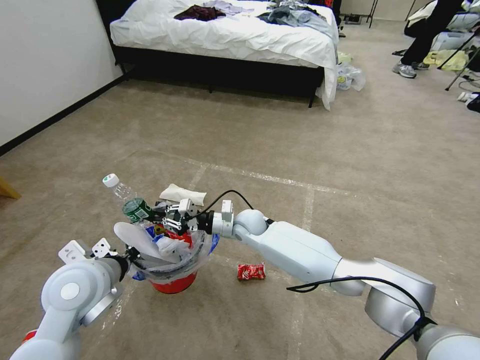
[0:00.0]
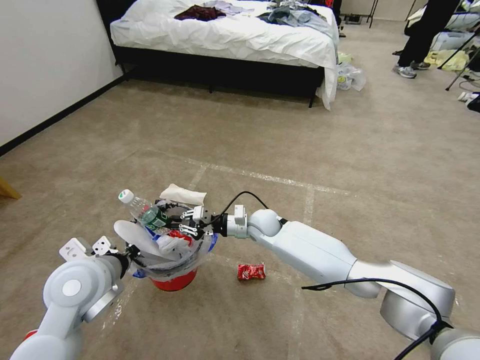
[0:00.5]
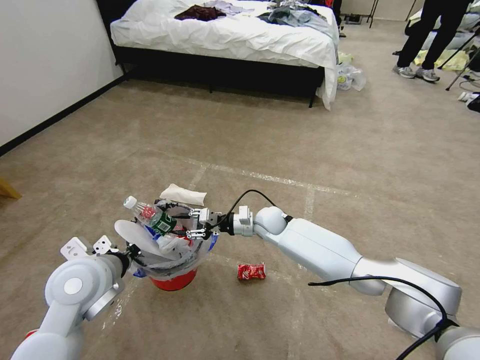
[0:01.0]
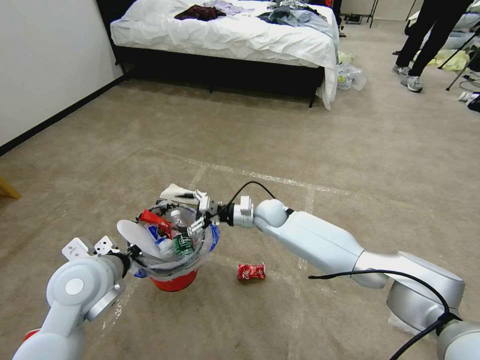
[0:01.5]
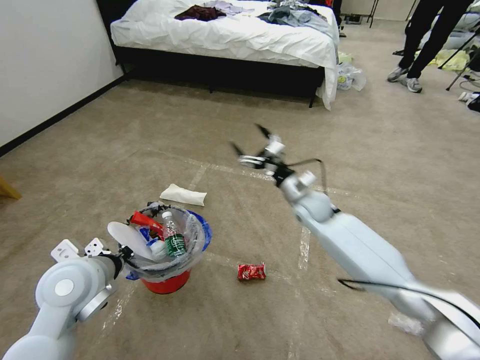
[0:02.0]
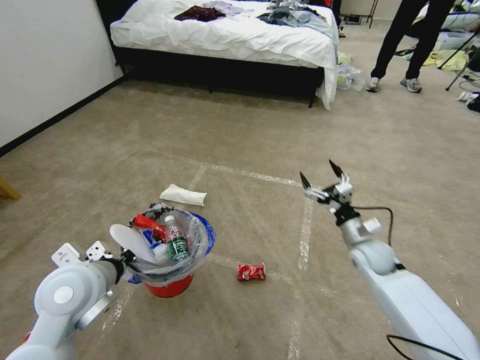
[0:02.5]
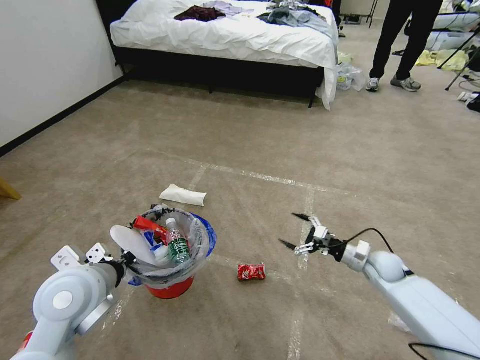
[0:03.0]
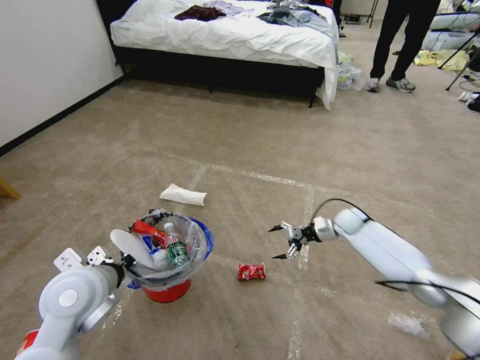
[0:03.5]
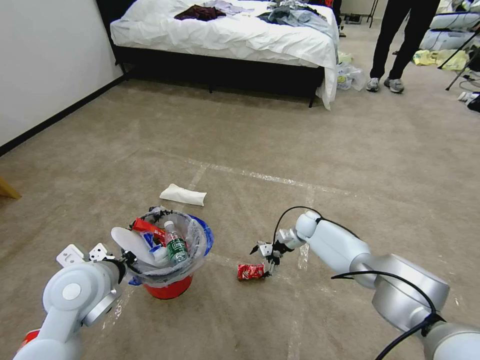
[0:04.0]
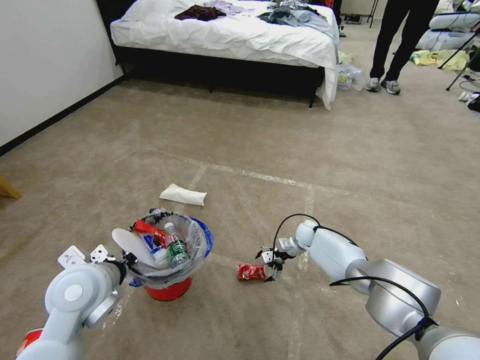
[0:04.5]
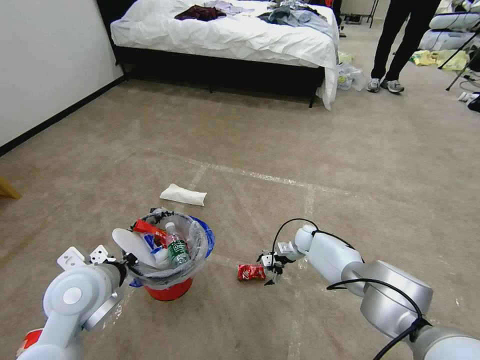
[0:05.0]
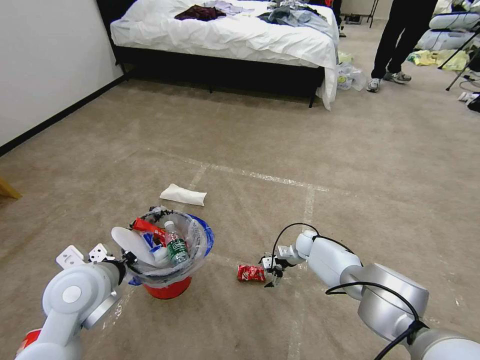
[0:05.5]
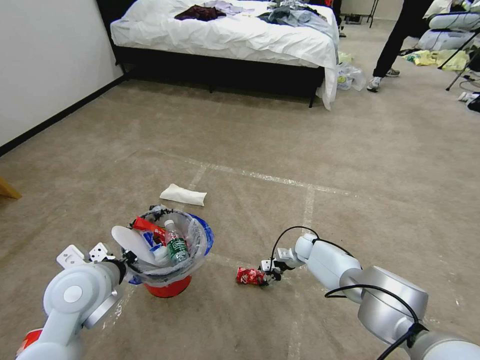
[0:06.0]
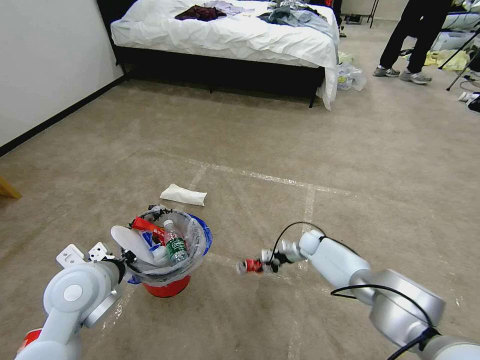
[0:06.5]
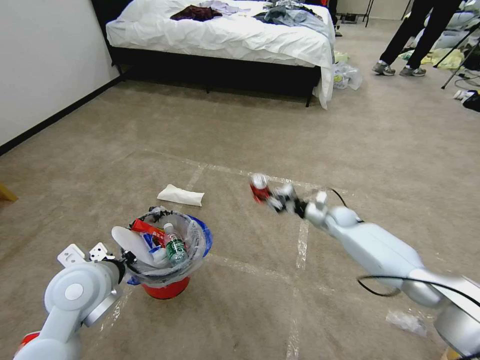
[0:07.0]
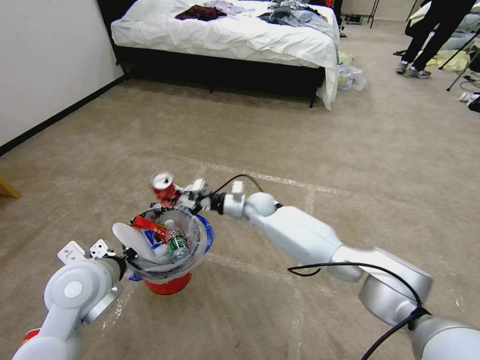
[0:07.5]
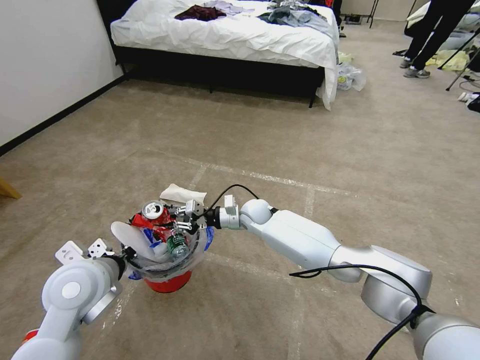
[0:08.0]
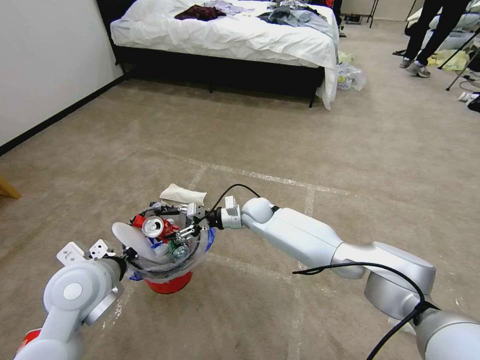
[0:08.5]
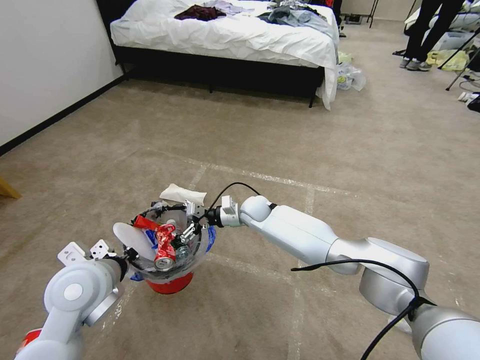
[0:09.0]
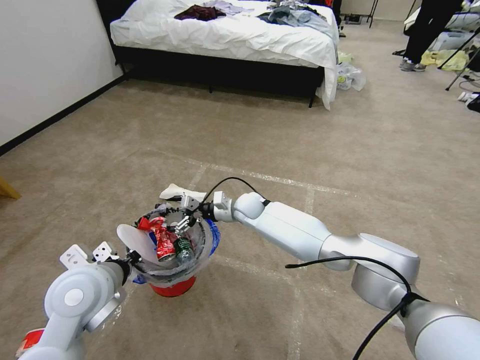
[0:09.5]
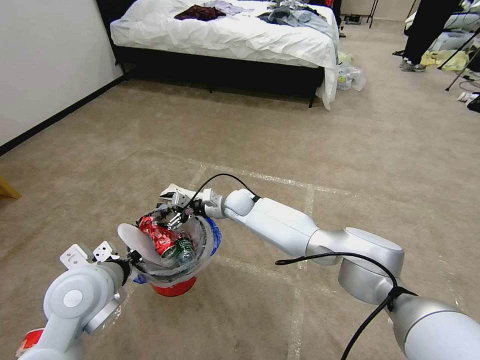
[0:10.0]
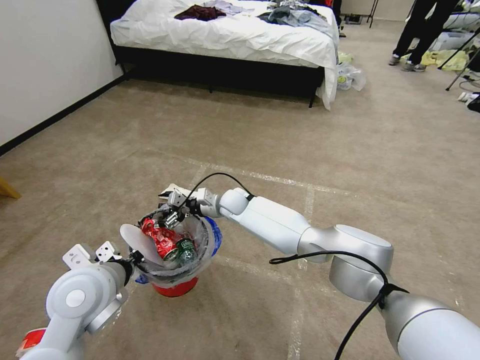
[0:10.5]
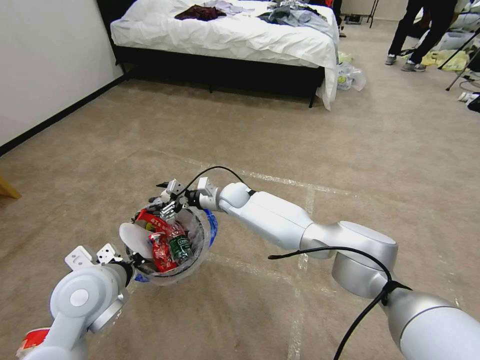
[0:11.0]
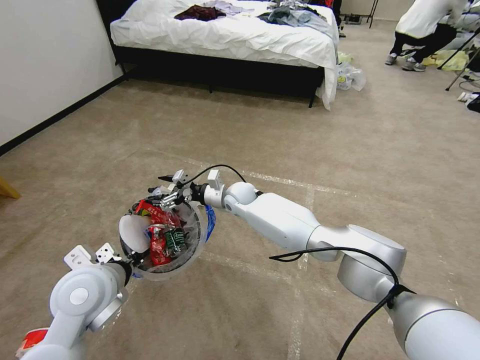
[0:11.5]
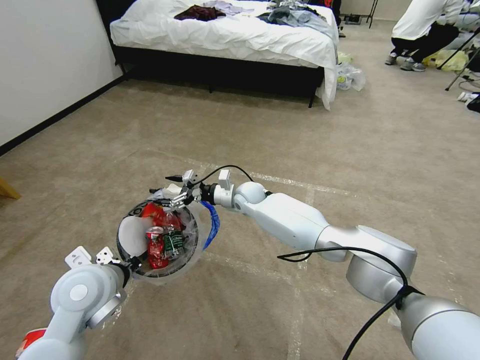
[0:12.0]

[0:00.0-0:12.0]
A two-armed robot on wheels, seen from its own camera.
Task of the whole recording: Pick up the trash bin and place the garbage on the floor into it.
0:00.0 to 0:02.0: The right gripper shifts roughly 15 cm to the right, and opens.
0:02.0 to 0:04.0: The right gripper shifts some 15 cm downward, and travels to the right and back again, roughly 20 cm each way.
0:04.0 to 0:06.0: The right gripper moves downward, about 5 cm, and closes.
0:06.0 to 0:08.0: The right gripper heads to the left and upward, covering some 25 cm, and closes up.
0:08.0 to 0:10.0: The right gripper shifts by approximately 5 cm, and opens.

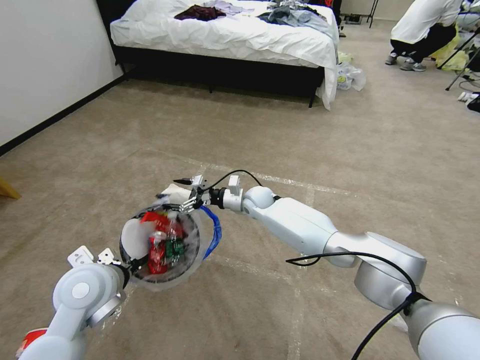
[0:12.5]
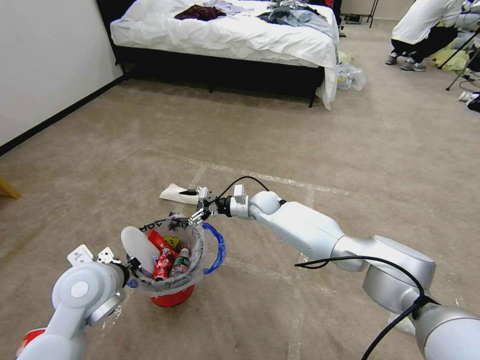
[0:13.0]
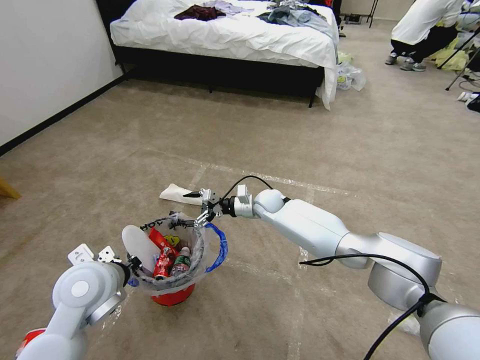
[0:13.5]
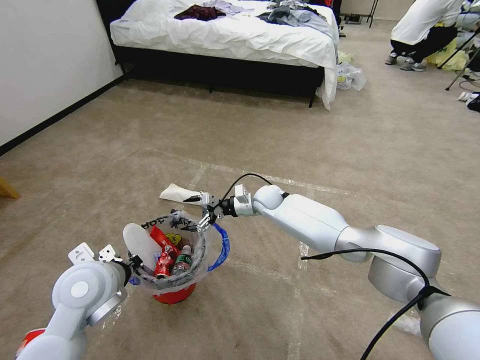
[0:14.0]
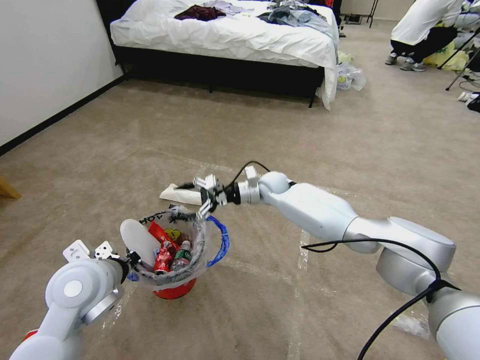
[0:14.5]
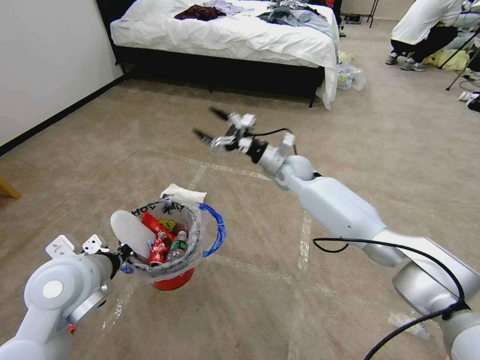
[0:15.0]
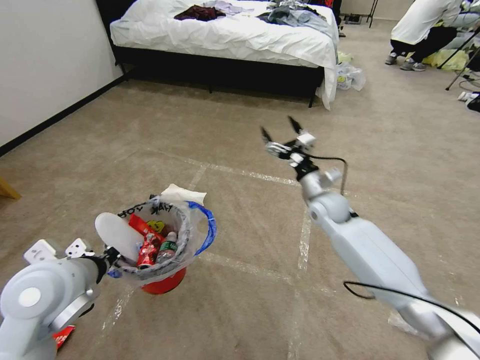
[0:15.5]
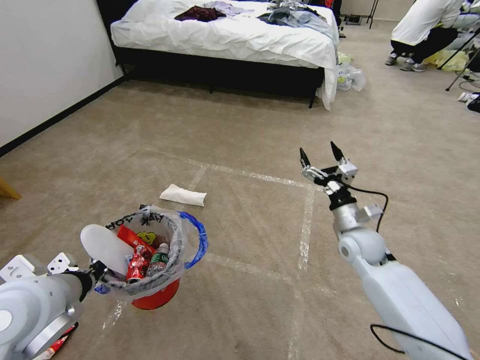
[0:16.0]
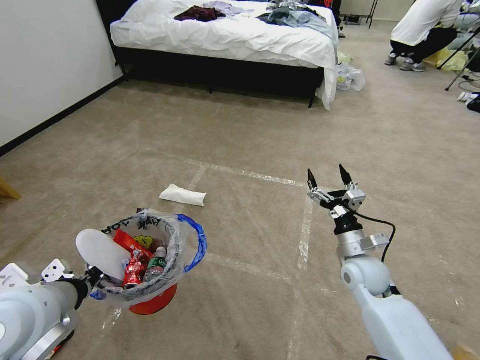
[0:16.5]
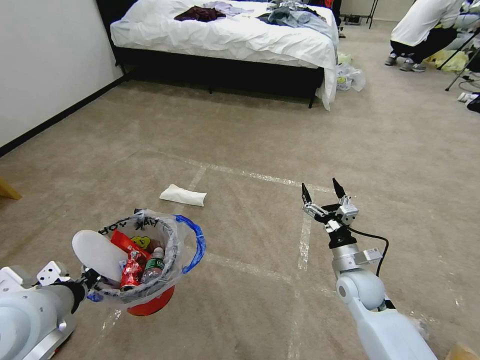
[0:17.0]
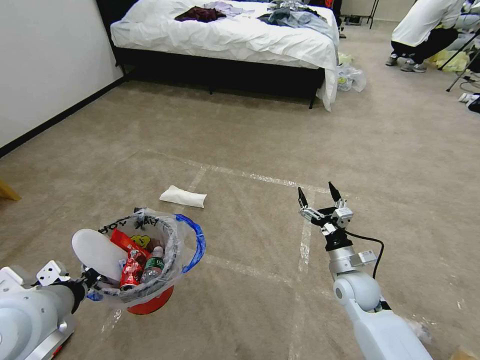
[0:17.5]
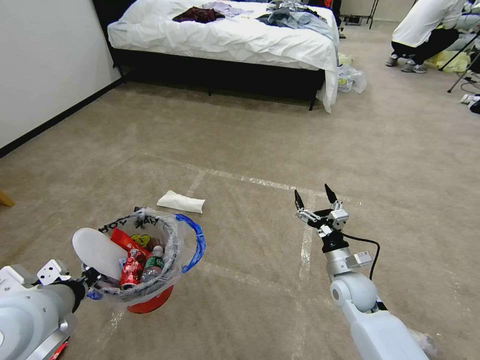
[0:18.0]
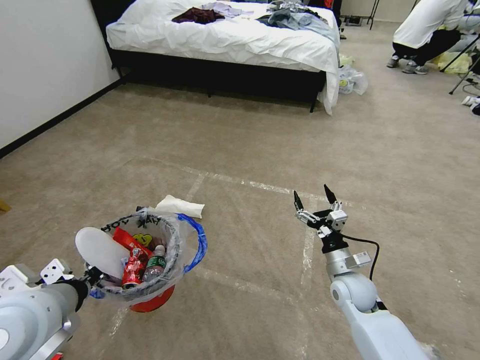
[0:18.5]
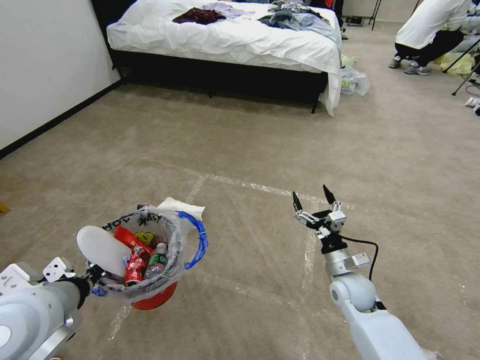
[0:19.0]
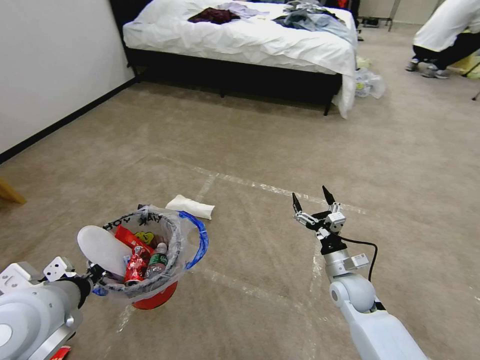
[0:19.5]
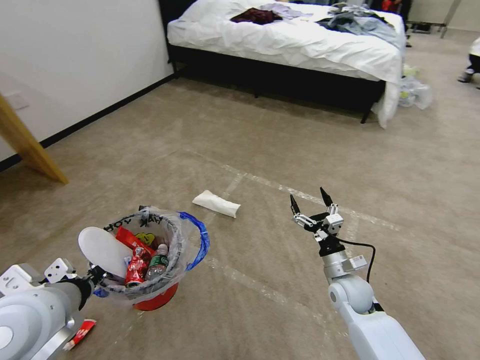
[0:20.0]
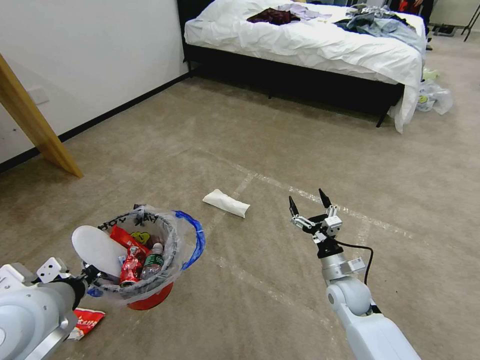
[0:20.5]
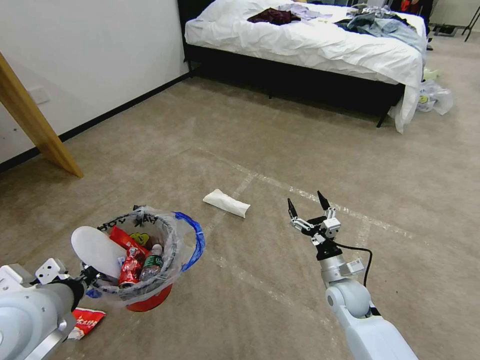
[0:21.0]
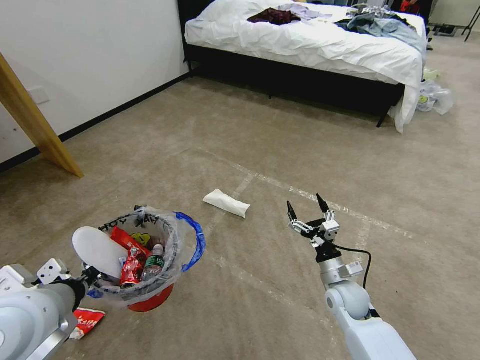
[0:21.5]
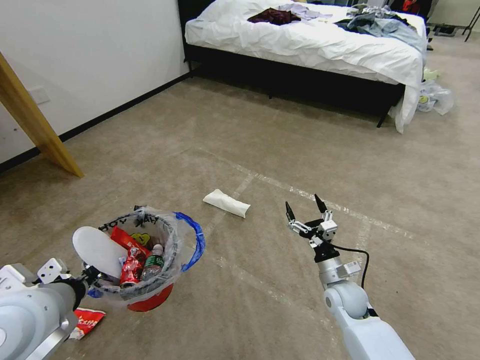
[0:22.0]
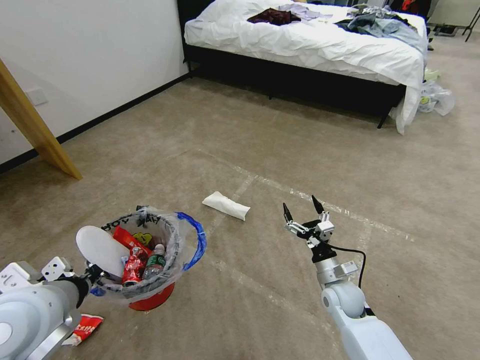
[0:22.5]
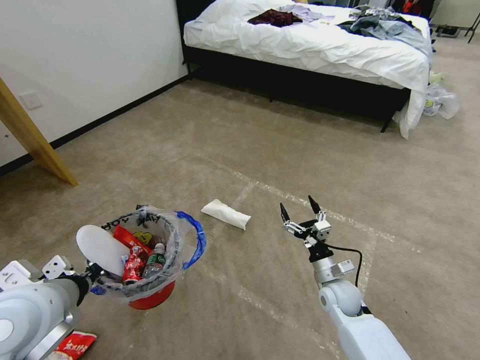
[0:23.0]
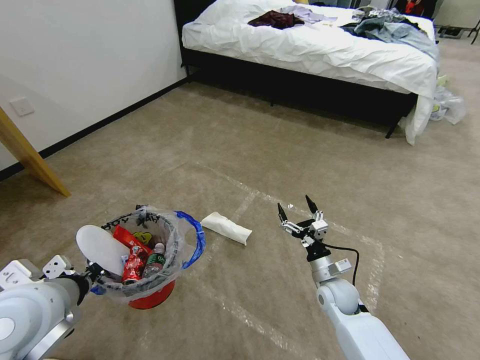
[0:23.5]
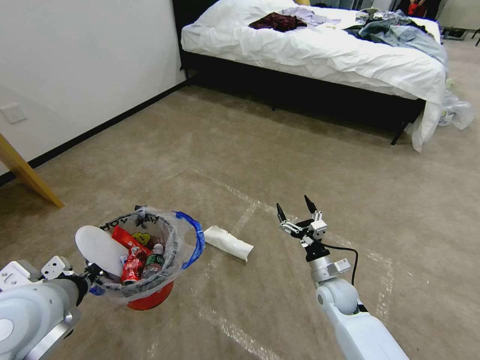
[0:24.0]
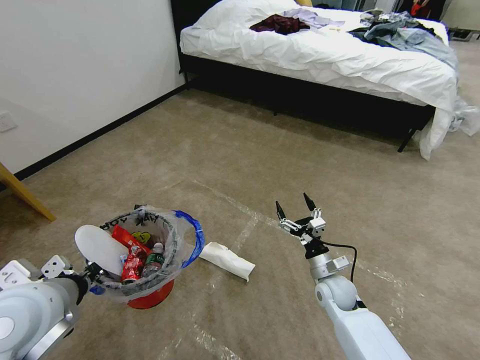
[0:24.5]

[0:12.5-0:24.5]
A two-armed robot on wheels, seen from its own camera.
Task of the whole recording: Pick up the trash bin and place the garbage on the floor into it.
0:12.5 to 0:14.5: The right gripper ends up some 5 cm from where it was.
0:14.5 to 0:16.5: The right gripper travels backward and to the right by approximately 30 cm, while the left gripper goes roughly 10 cm backward and upward.
0:16.5 to 0:18.5: The right gripper travels downward by about 5 cm.
0:20.5 to 0:22.5: There are only small adjustments of the grippers.

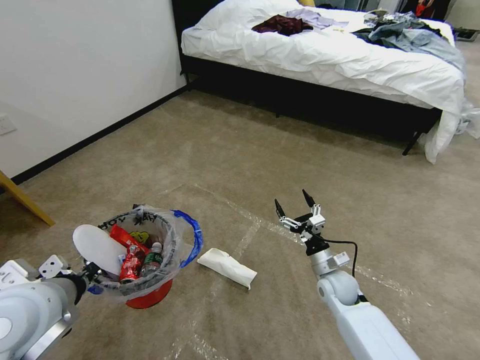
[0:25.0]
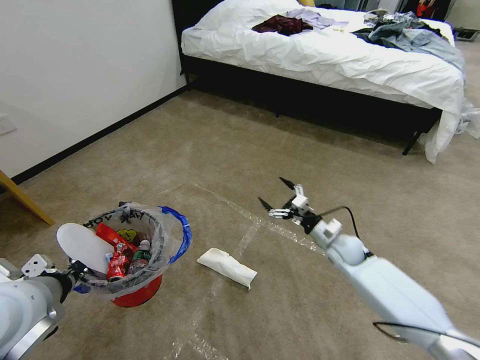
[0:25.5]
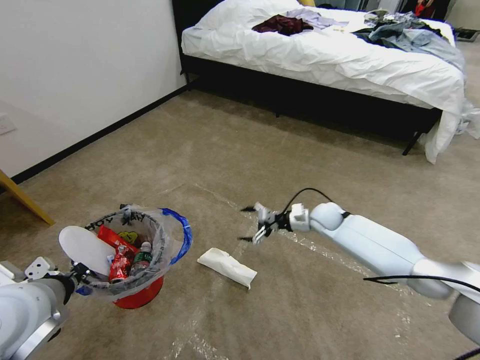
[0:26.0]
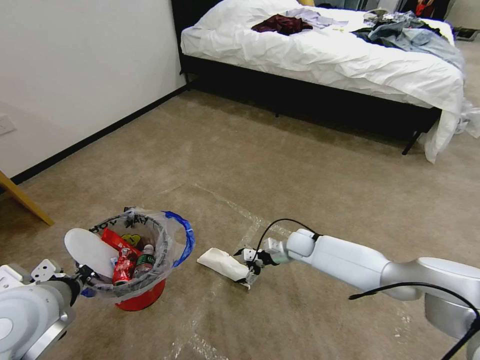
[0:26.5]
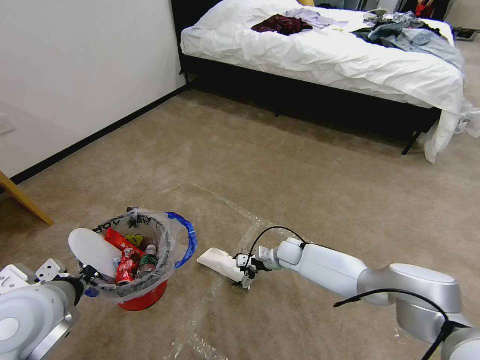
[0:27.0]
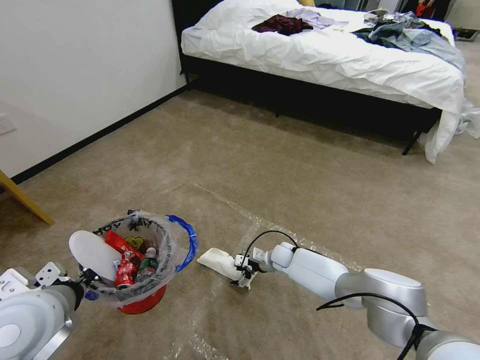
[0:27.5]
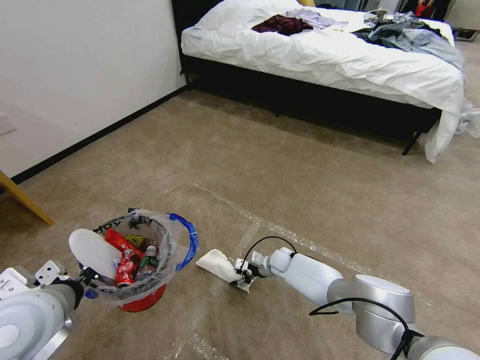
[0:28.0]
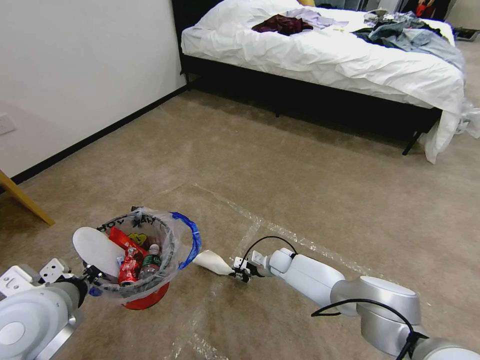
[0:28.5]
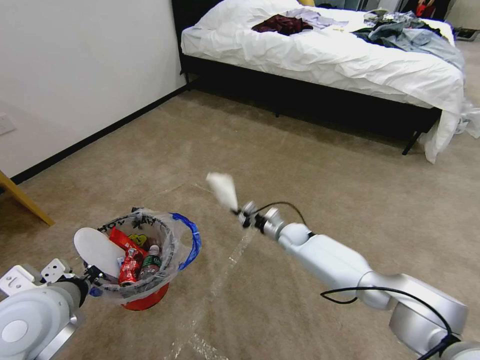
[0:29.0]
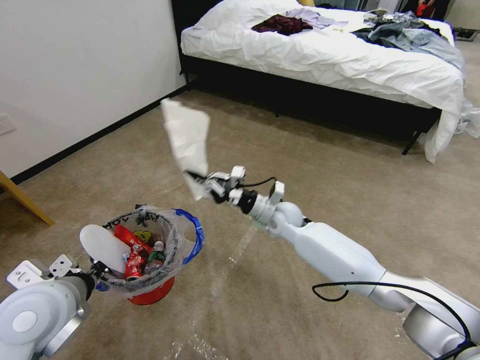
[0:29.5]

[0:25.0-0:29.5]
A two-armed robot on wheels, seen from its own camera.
Task of the whole recording: Pick up the trash bin and place the garbage on the floor into it.
0:25.0 to 0:27.0: The right gripper heads forward and to the left, covering some 15 cm.
0:27.0 to 0:29.5: The right gripper travels upward by roughly 15 cm, and closes.
